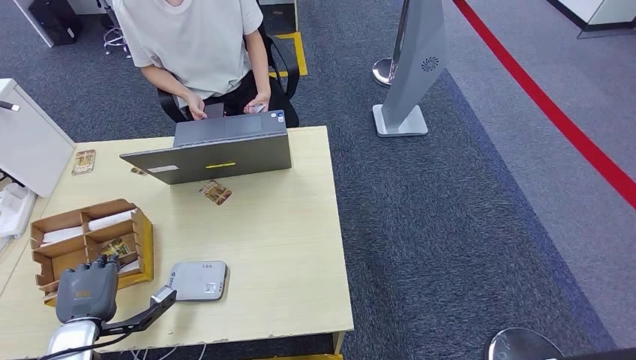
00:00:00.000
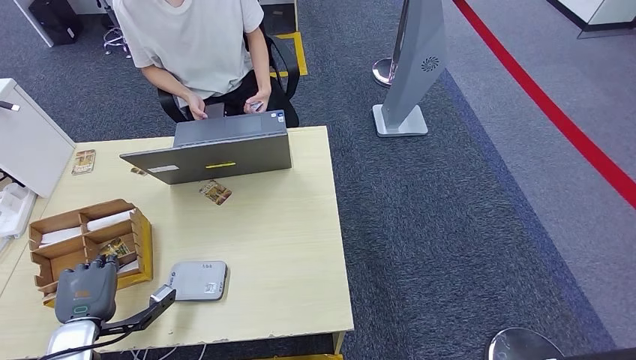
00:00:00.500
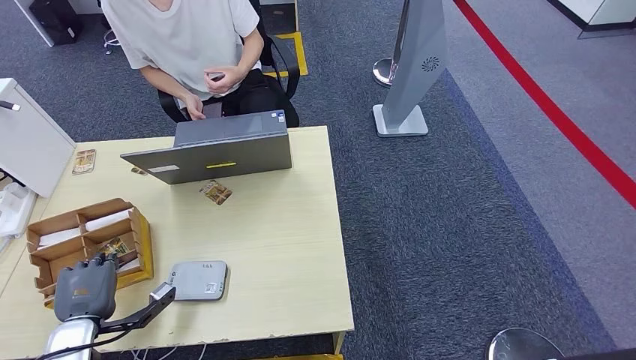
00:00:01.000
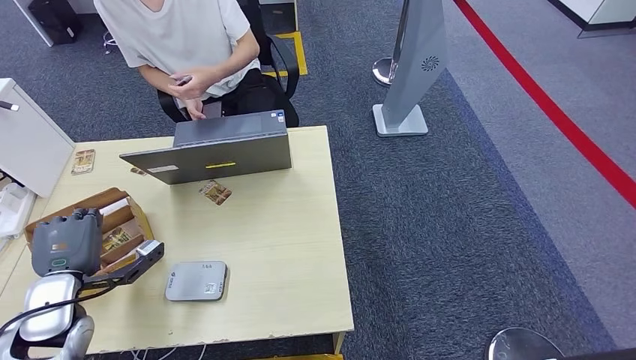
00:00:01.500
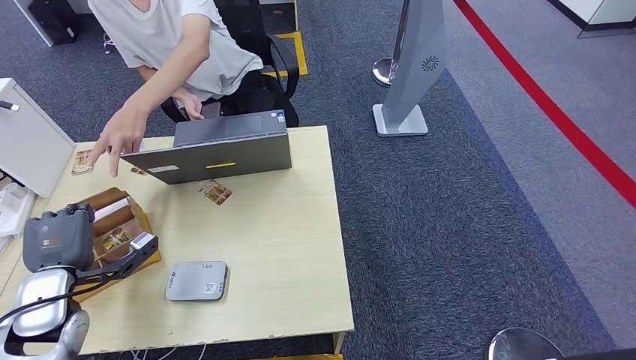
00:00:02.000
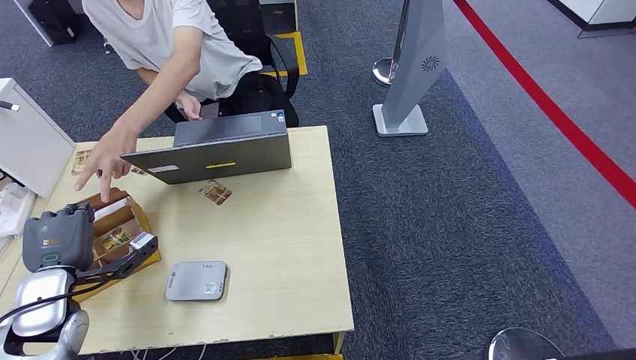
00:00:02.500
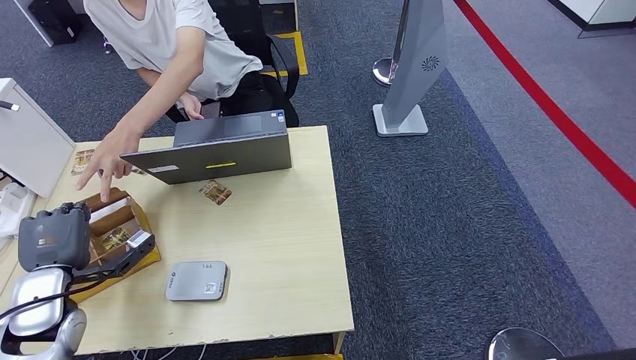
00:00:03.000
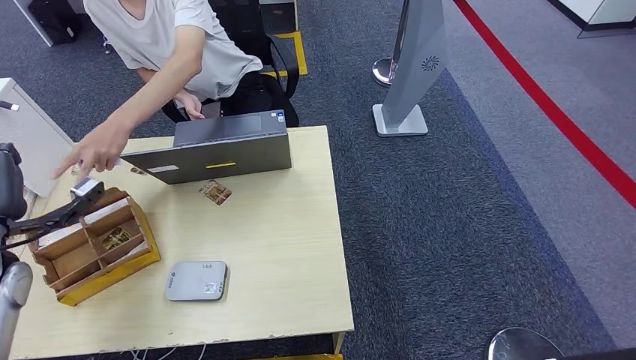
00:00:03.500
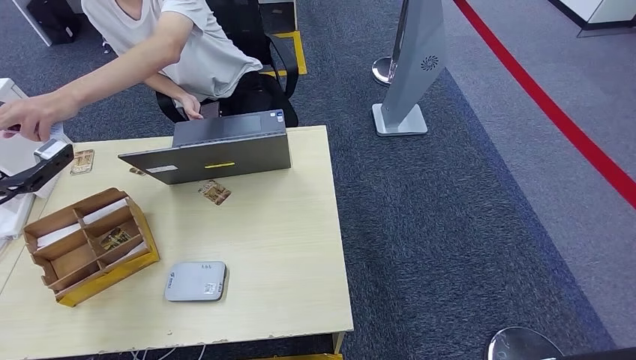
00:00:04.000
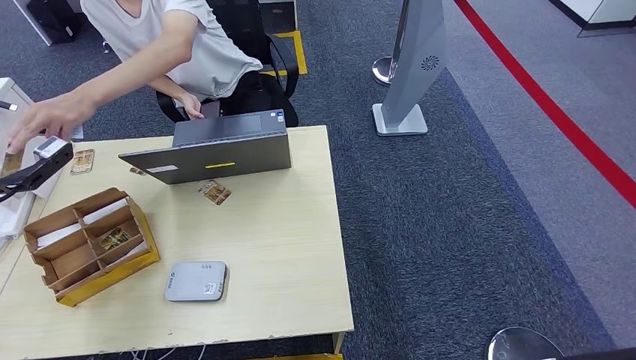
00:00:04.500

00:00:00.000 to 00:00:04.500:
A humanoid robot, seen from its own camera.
Step, 00:00:00.000 to 00:00:02.000: Pick up the room key from the key card box.
Step, 00:00:02.500 to 00:00:04.500: Hand the room key to the person.
00:00:00.000 to 00:00:02.000: The left hand moves upward and forward, some 10 cm.
00:00:02.000 to 00:00:04.500: The left hand moves upward, to the left and forward, about 20 cm.
